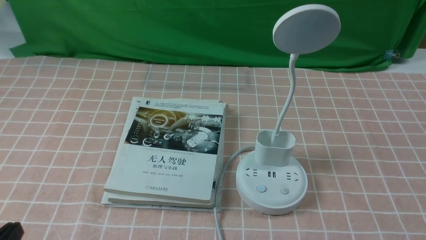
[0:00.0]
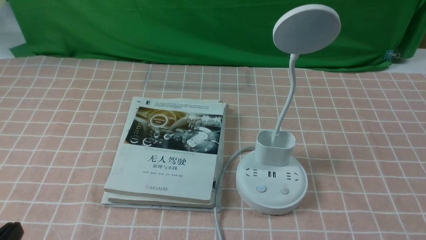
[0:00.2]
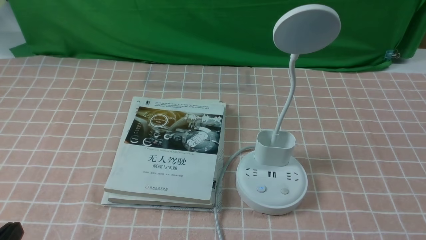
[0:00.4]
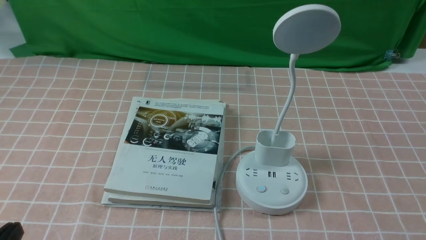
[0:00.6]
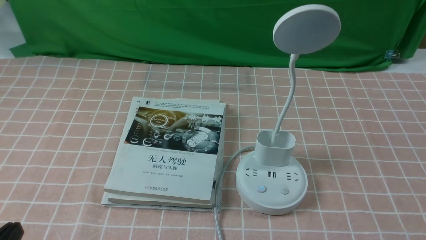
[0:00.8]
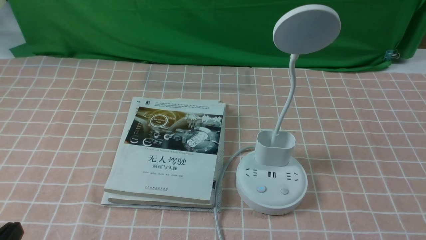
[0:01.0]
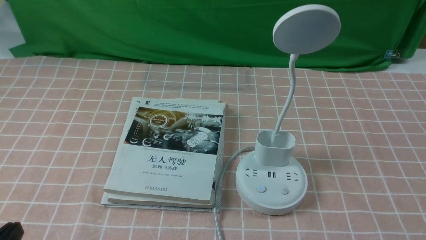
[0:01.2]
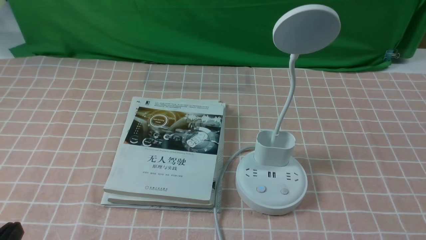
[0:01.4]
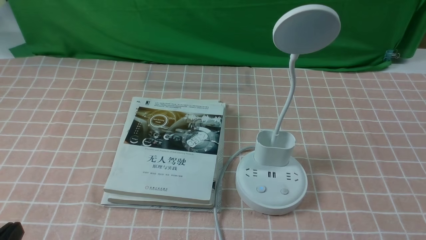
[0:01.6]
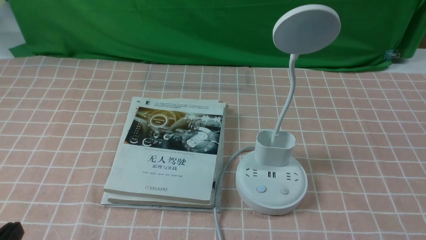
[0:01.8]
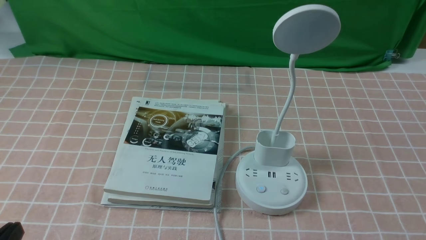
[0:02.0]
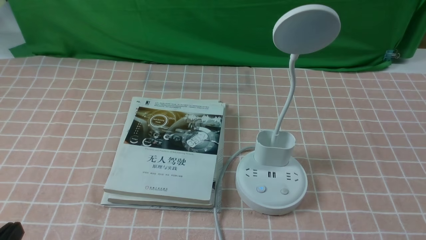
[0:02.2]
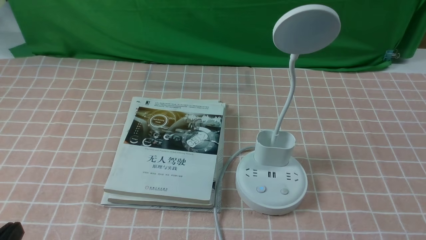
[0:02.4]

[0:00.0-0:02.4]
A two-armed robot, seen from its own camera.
Task of the whole recording: turn off the table lamp on the pink coffee tablecloth by hand.
0:00.0 to 0:02.4: Both grippers stay put.

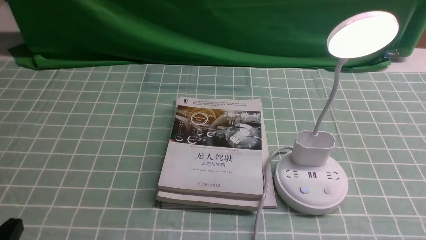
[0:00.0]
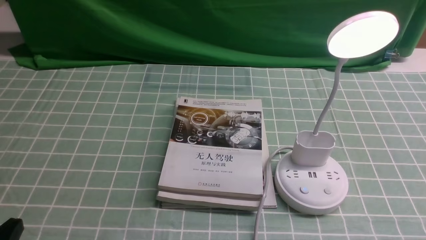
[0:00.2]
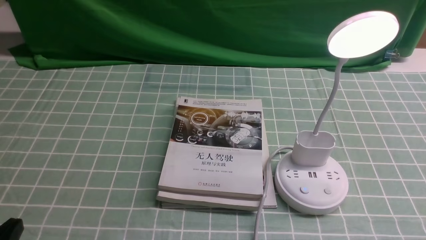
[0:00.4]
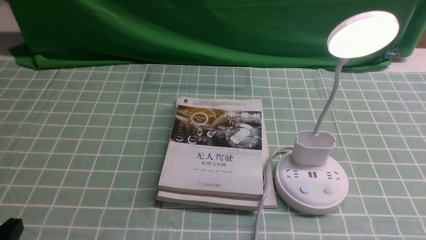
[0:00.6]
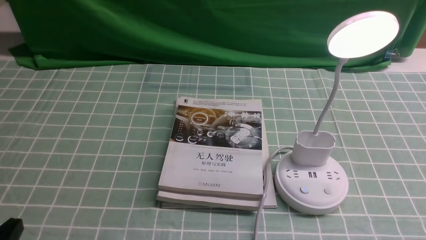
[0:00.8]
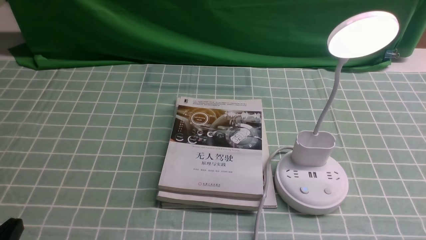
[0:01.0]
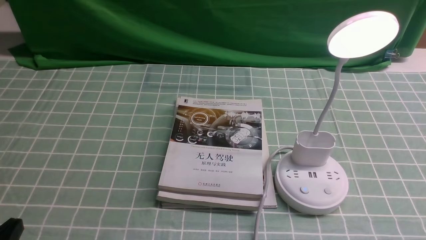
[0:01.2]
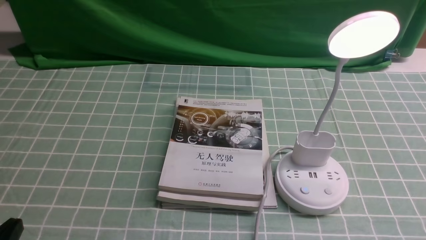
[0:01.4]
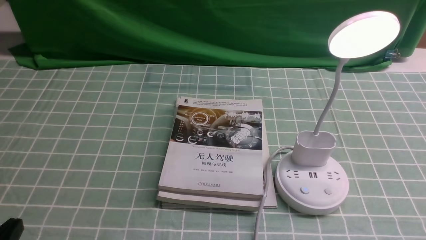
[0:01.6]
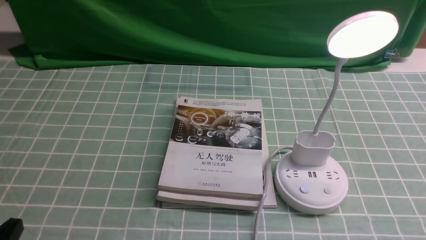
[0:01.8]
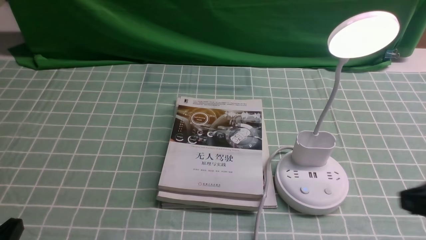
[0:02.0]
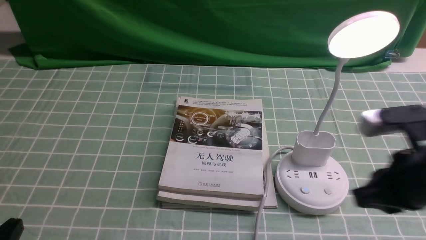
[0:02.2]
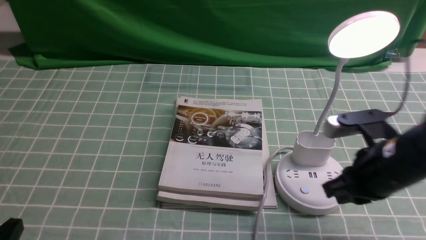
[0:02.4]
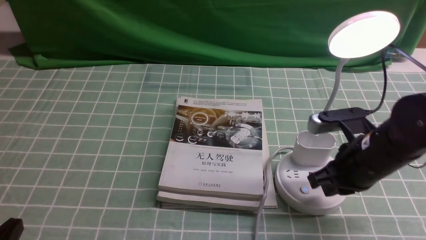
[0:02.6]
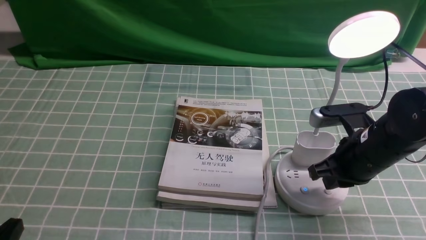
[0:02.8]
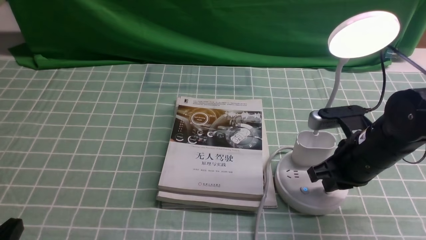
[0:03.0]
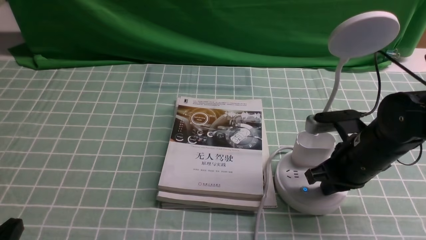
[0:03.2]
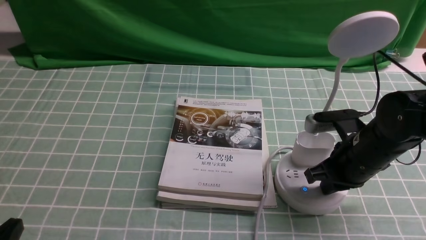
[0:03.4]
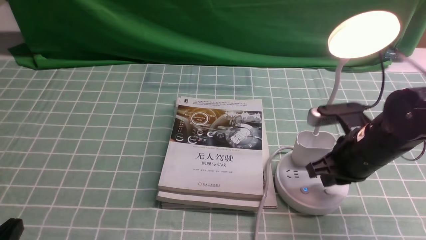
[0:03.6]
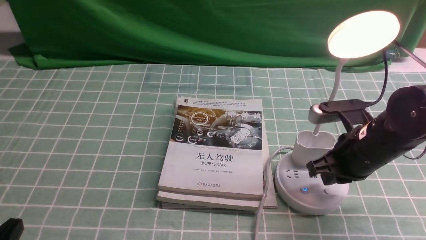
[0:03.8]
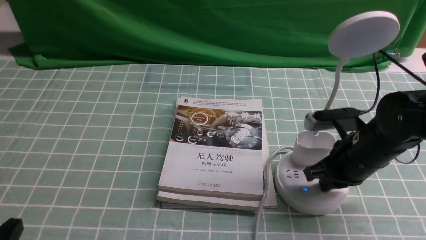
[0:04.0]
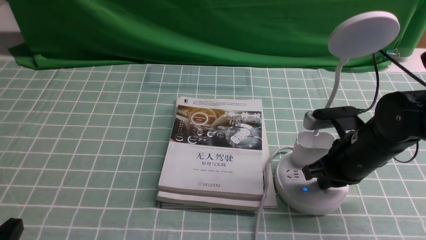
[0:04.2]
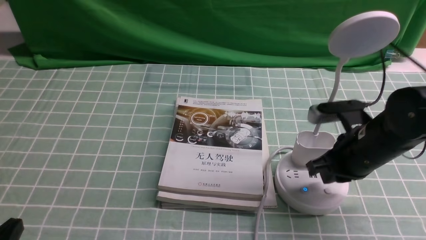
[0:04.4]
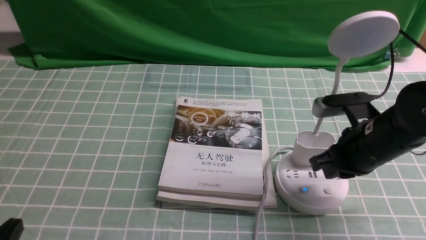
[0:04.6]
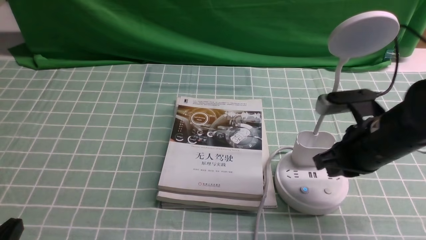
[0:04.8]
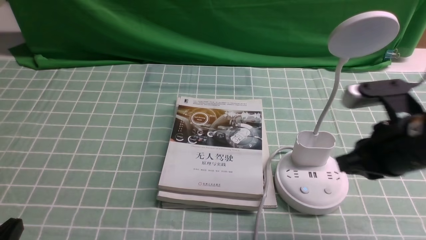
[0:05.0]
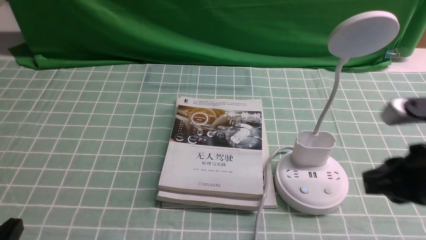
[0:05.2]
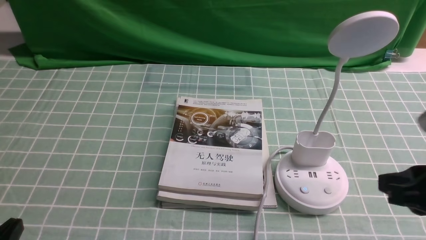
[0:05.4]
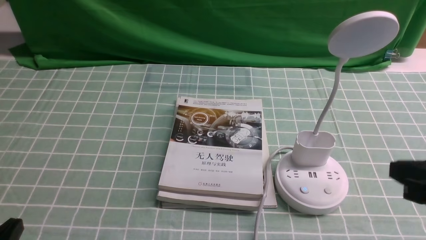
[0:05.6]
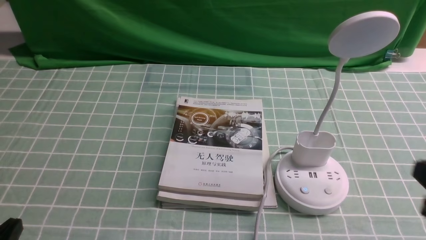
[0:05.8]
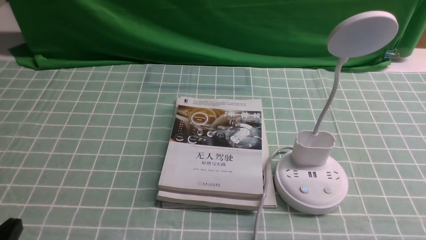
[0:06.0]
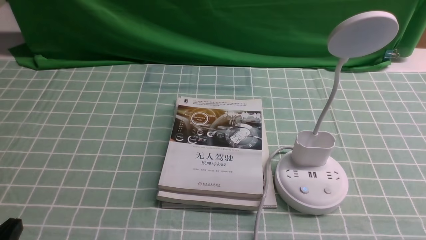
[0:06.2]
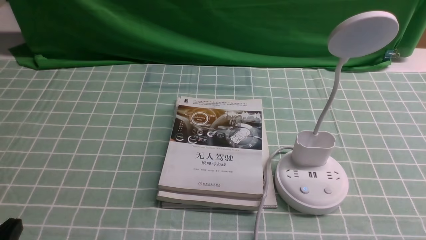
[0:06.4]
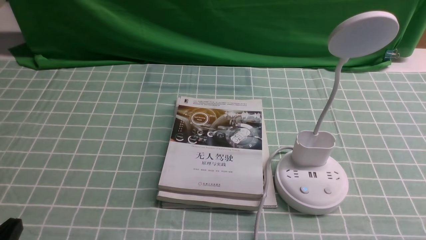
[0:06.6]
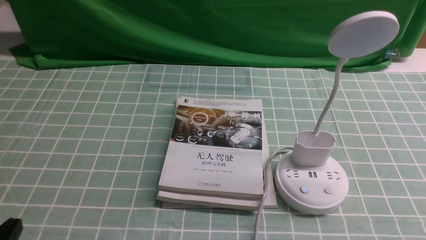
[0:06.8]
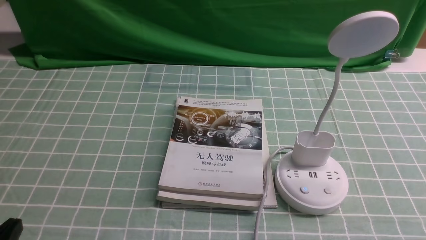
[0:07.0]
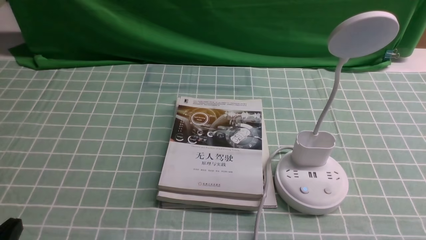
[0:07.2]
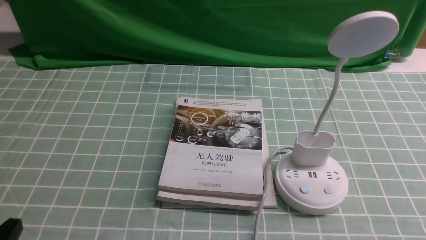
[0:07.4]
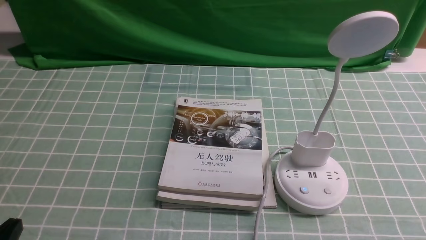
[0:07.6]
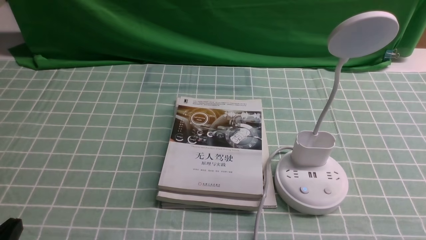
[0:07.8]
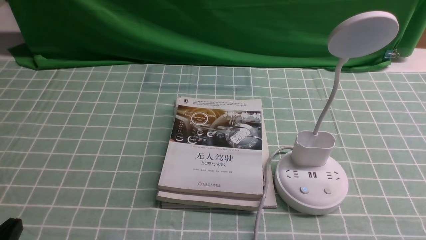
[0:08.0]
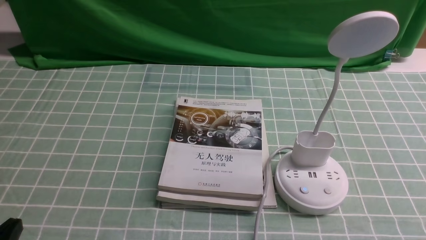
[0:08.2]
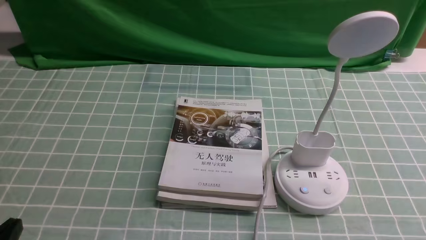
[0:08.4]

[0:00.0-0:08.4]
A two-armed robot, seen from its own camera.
Task of the whole recording: turn off the desk lamp on the blue coffee tablecloth by hand.
Step, 0:00.0 to 0:04.4: use the right arm to press the button switch on the lamp holder.
0:01.4 to 0:02.8: The right gripper heads forward and to the left, covering roughly 25 cm, and closes its fingers.
0:02.8 to 0:04.2: The grippers make only small movements.
0:04.2 to 0:05.6: The right gripper is displaced backward and upward by some 20 cm.
0:05.6 to 0:07.0: The right gripper is displaced downward and backward by about 10 cm.
